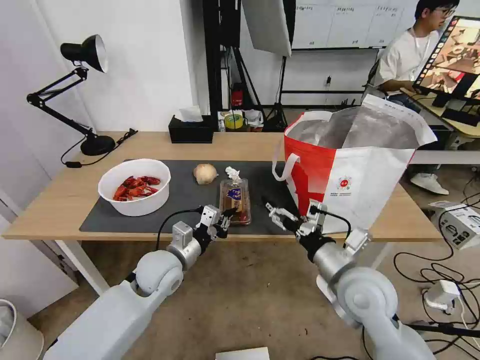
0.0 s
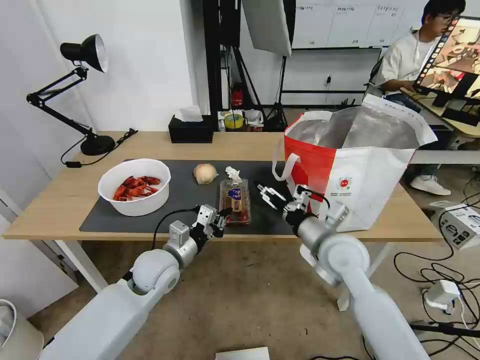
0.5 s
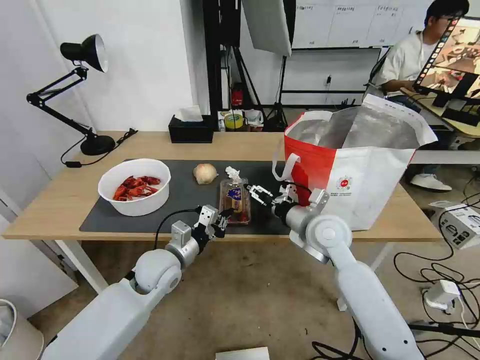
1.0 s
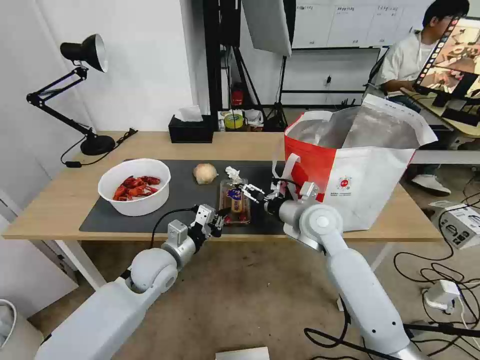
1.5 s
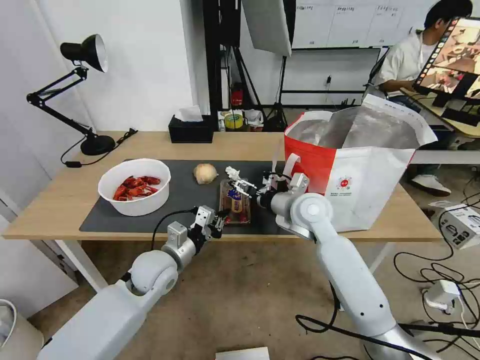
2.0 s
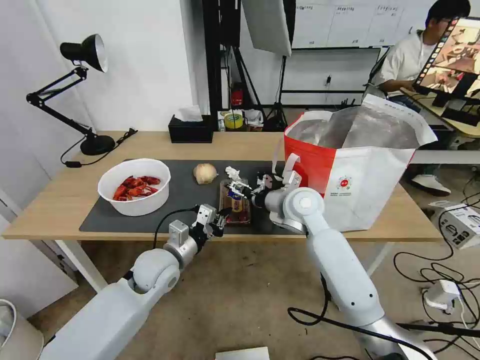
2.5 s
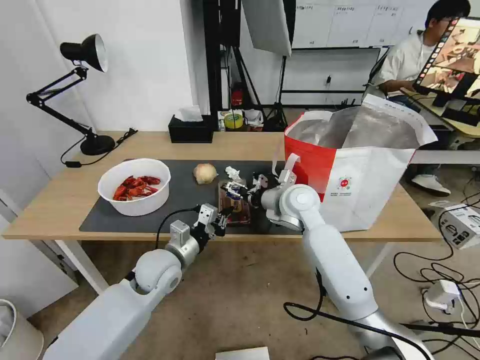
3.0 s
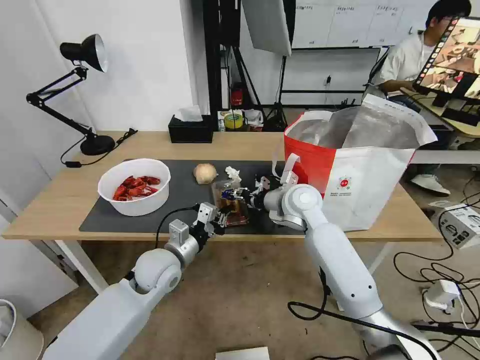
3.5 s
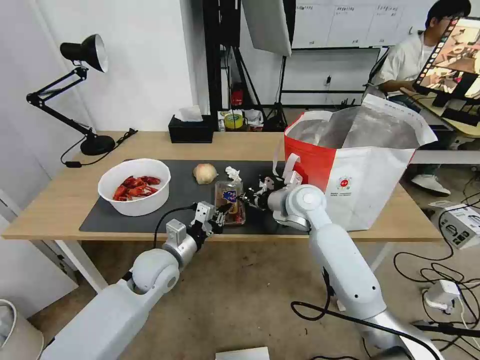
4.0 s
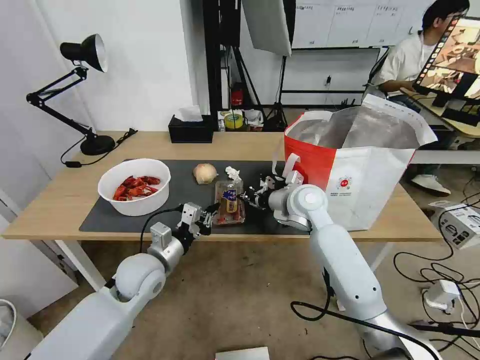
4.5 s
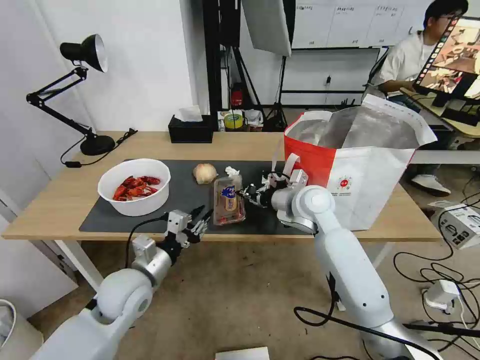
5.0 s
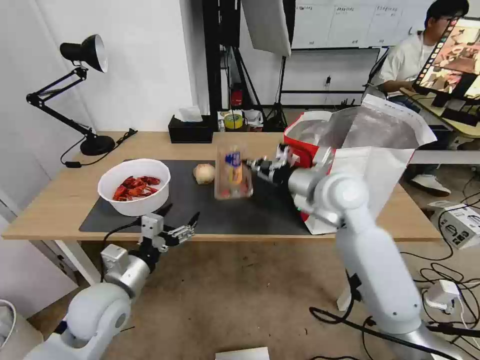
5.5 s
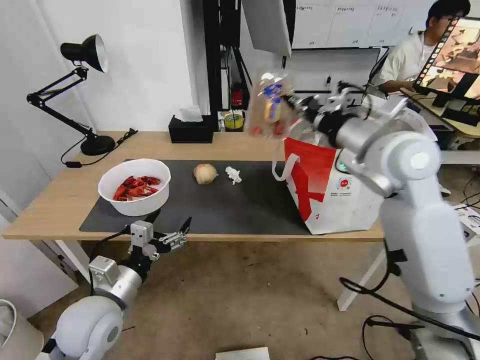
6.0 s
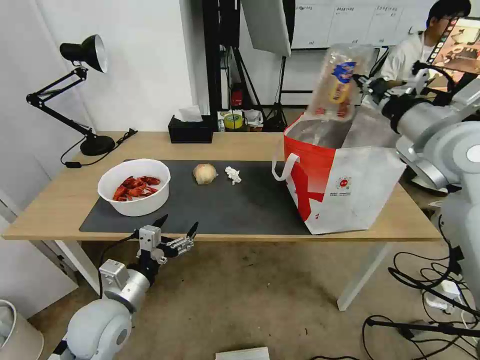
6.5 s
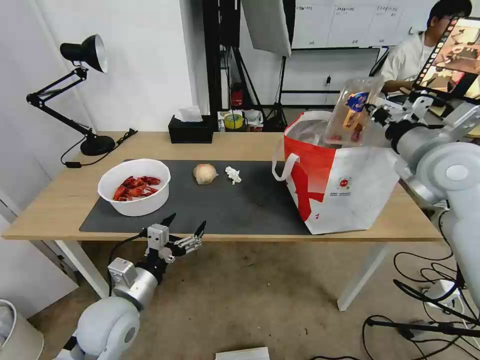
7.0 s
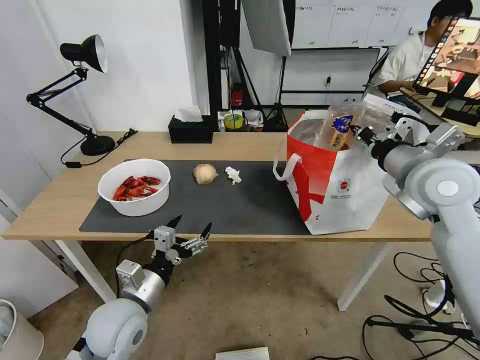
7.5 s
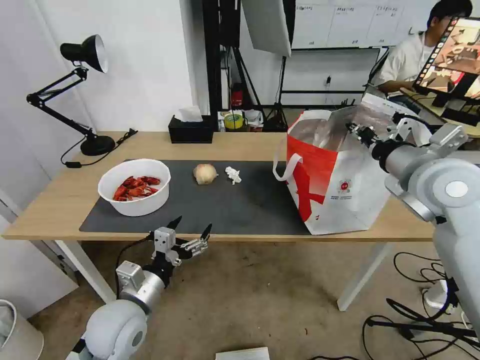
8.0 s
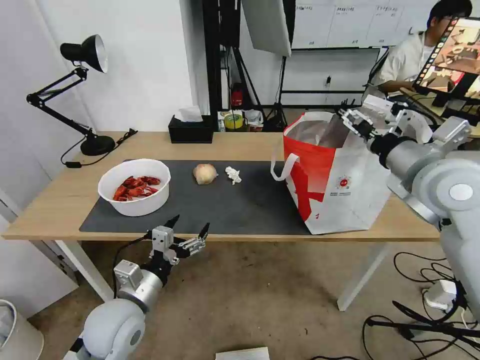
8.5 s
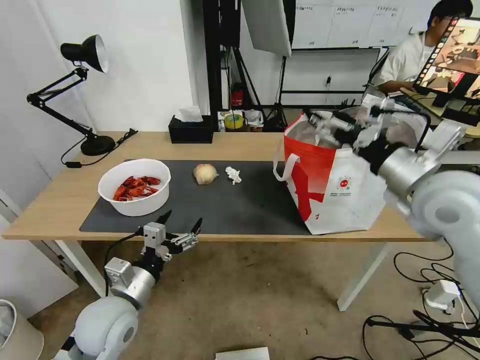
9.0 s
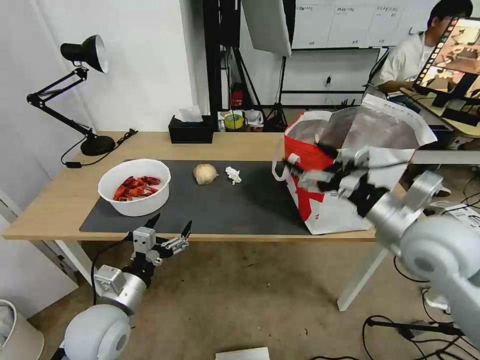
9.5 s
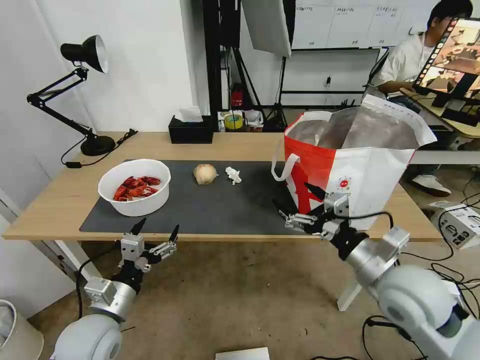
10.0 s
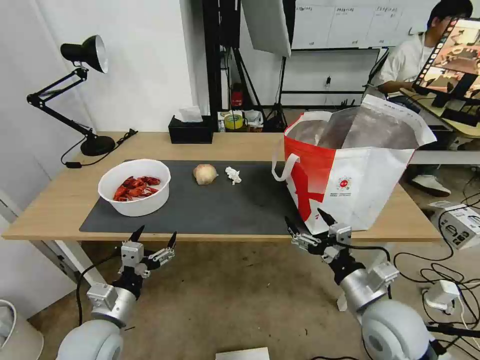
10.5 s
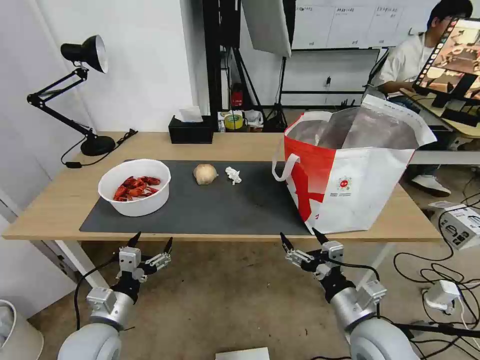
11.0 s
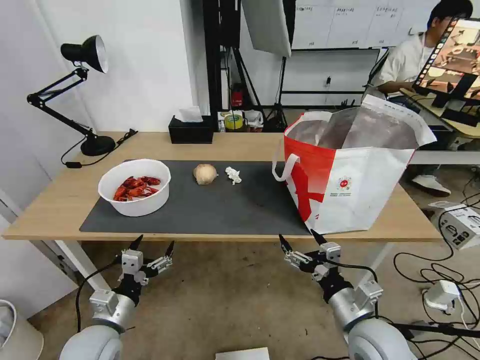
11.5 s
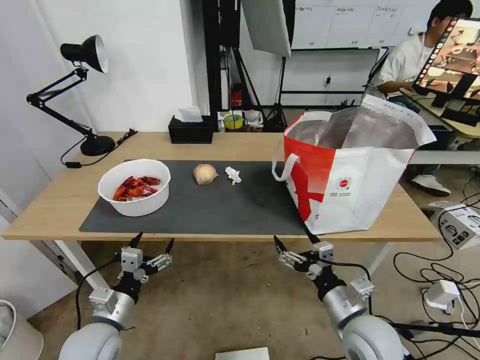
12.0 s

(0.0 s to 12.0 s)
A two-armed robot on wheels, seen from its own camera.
Task of the whole recording: Pick up the trash from the table and place it into the takeout bag.
0.0 s - 2.0 s: The right gripper travels forward by some 20 cm.
2.0 s - 4.0 s: The right gripper closes.
4.0 s - 6.0 s: The left gripper shifts roughly 15 cm backward and to the left, and opens up. The right gripper travels upward and to the right by roughly 20 cm.
6.0 s - 8.0 s: The right gripper goes about 10 cm to the right.
8.0 s - 10.0 s: The left gripper shifts by approximately 5 cm; the right gripper is displaced downward and backward by about 20 cm, and opens up.
10.0 s - 12.0 s: The right gripper travels downward by roughly 10 cm; the left gripper moves roughly 5 cm.

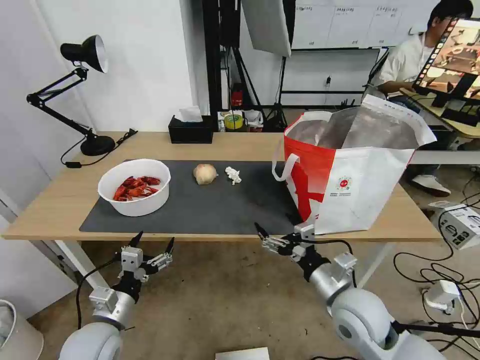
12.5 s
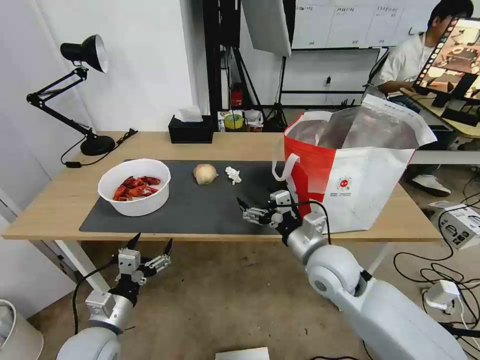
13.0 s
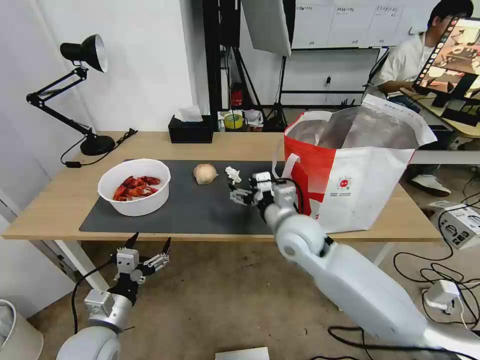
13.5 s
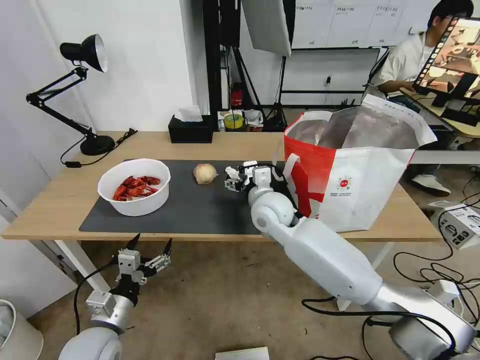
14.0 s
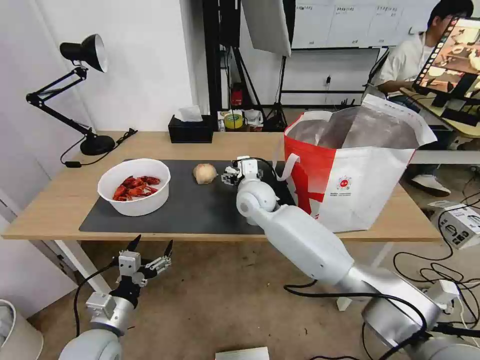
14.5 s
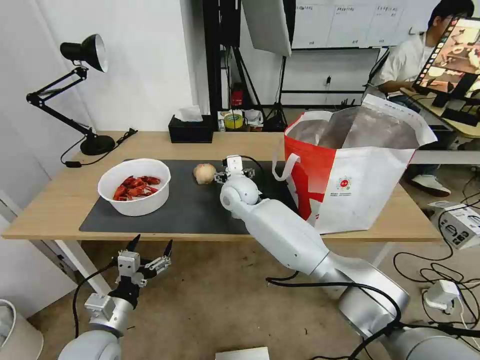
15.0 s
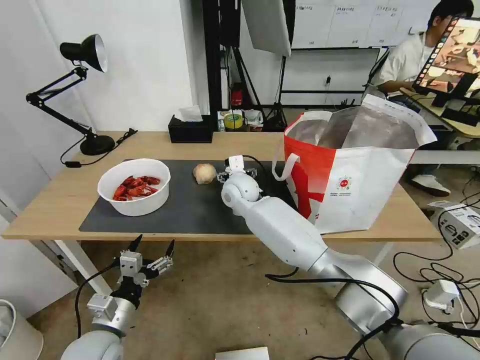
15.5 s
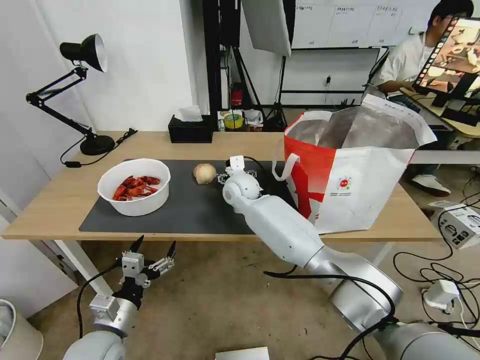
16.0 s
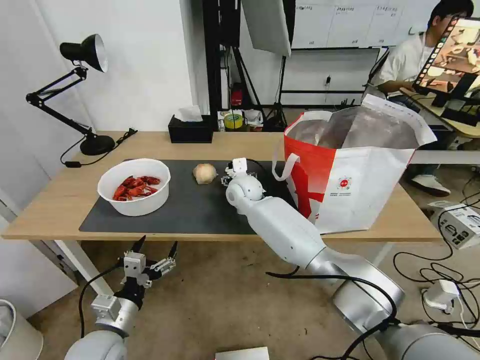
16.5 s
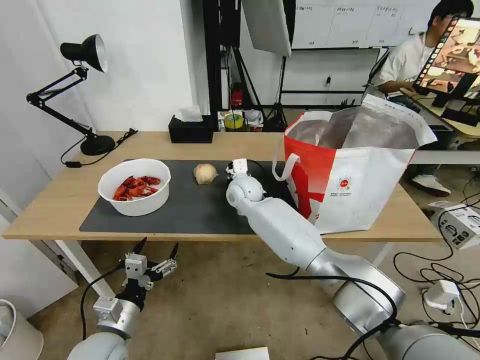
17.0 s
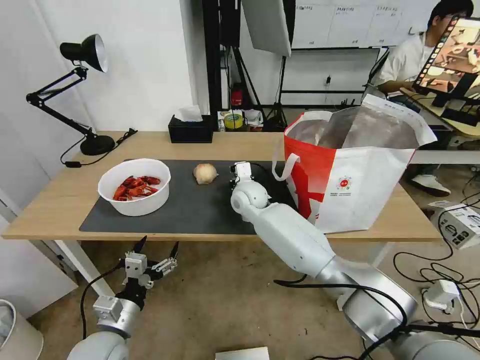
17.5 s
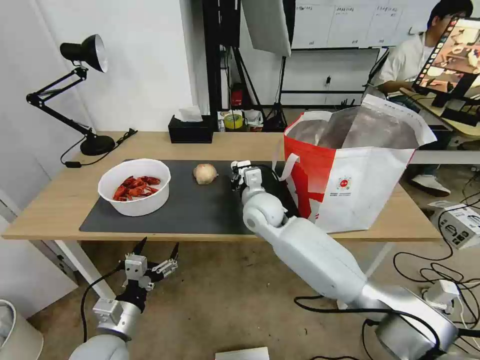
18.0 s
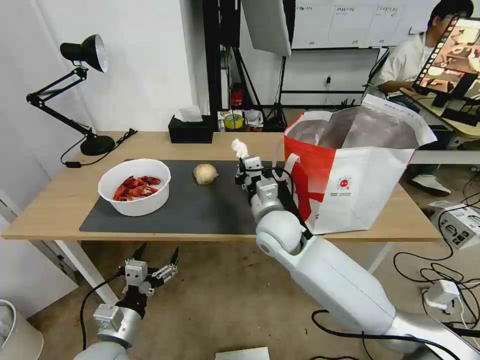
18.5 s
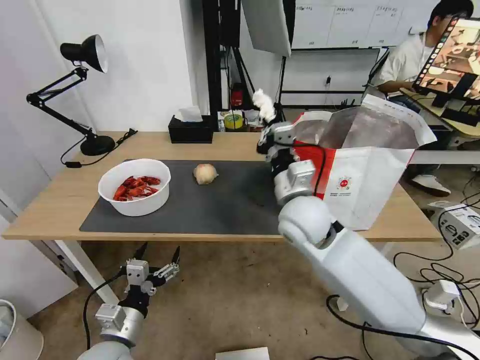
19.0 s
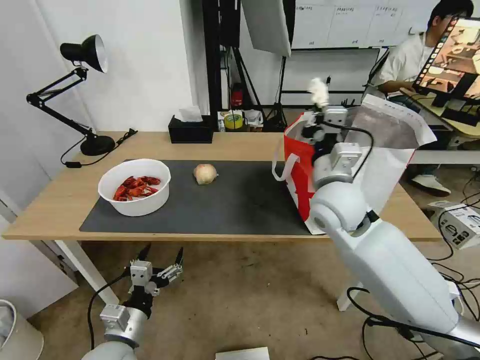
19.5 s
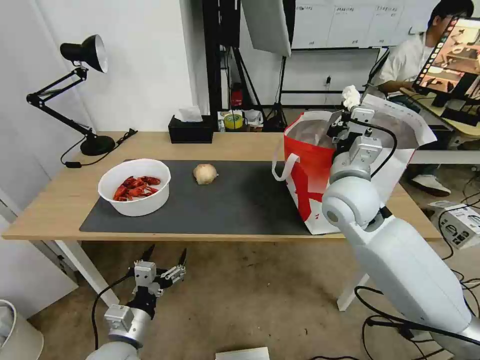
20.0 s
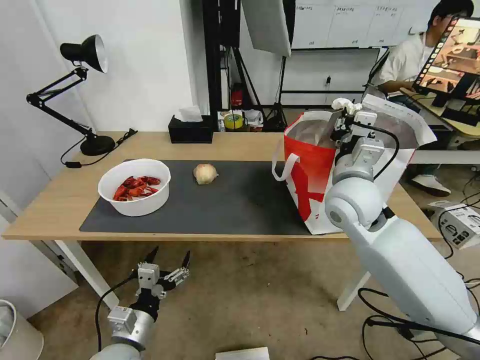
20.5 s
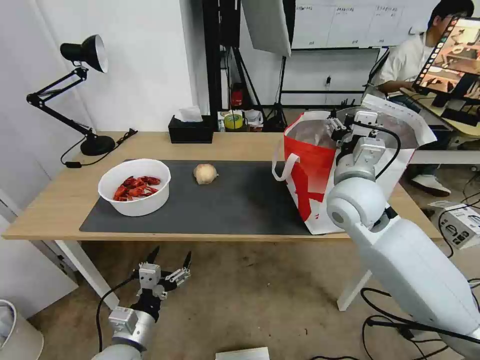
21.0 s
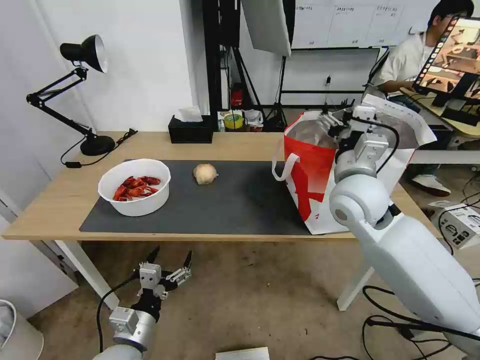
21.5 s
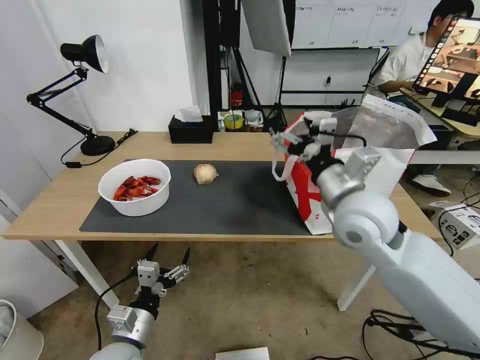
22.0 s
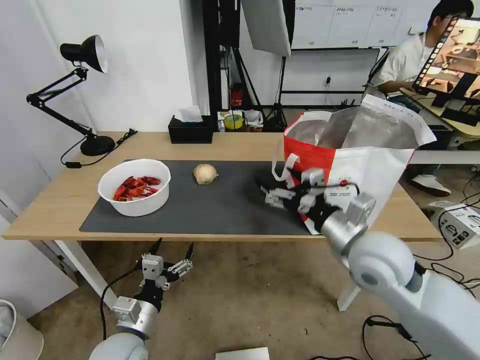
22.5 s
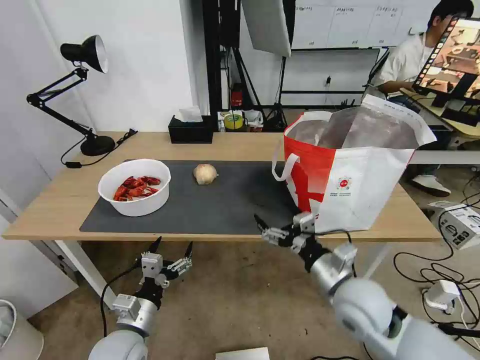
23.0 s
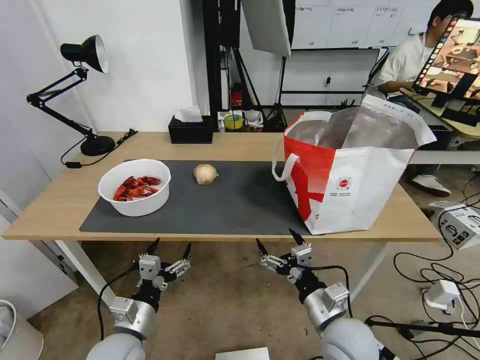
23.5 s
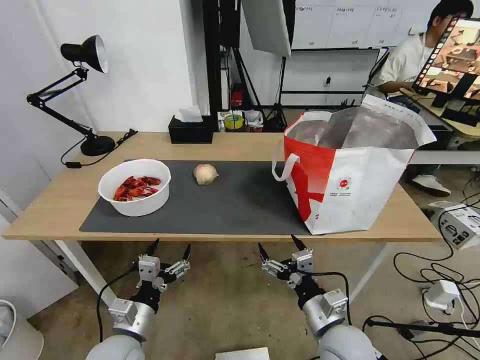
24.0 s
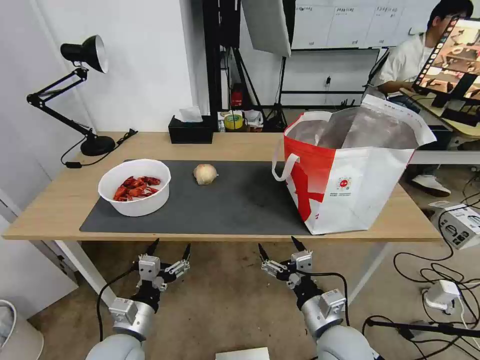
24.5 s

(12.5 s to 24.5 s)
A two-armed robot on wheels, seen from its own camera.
Task of the whole recording: Pick up the trash from the table and place it into the takeout bag.
12.5 s - 14.5 s: The right gripper travels forward and to the left by about 30 cm.
14.5 s - 16.5 s: The right gripper goes approximately 5 cm forward.
16.5 s - 18.5 s: The right gripper moves backward and to the right, about 15 cm, and closes its fingers.
18.5 s - 20.5 s: The right gripper moves to the right and upward, some 15 cm.
20.5 s - 22.5 s: The right gripper moves backward, about 10 cm, and opens its fingers.
22.5 s - 24.5 s: The right gripper travels downward and backward by some 20 cm.

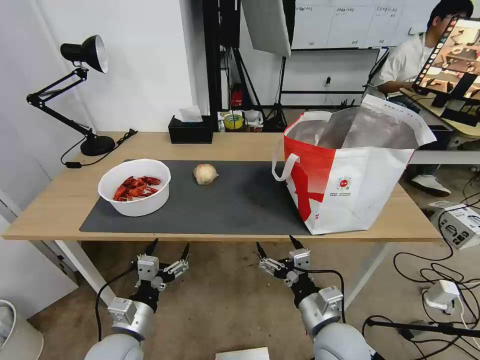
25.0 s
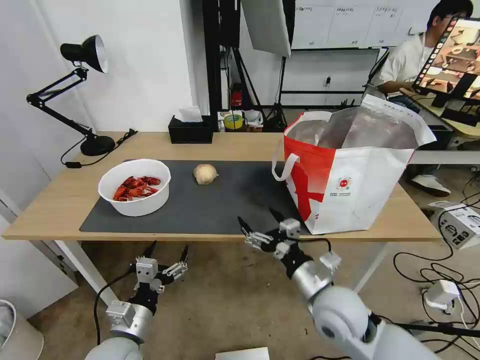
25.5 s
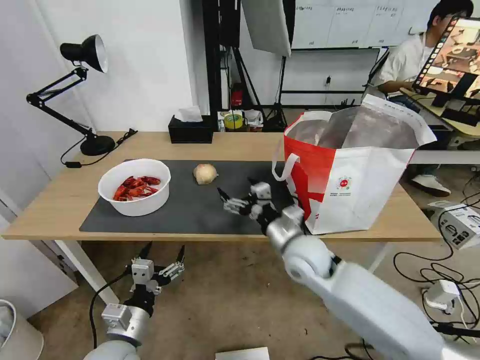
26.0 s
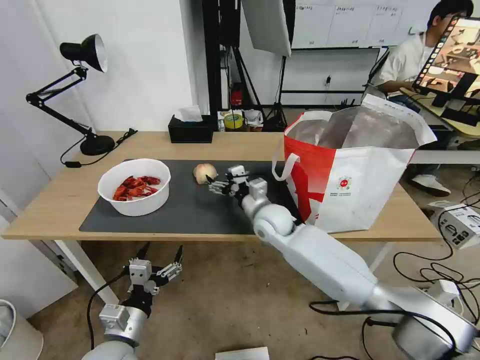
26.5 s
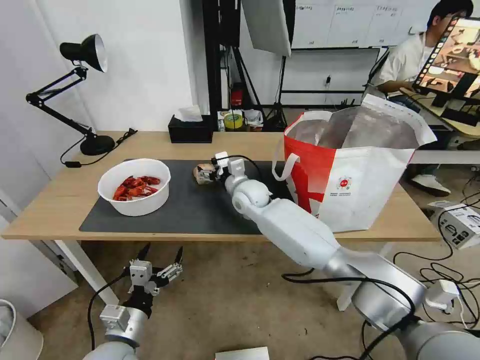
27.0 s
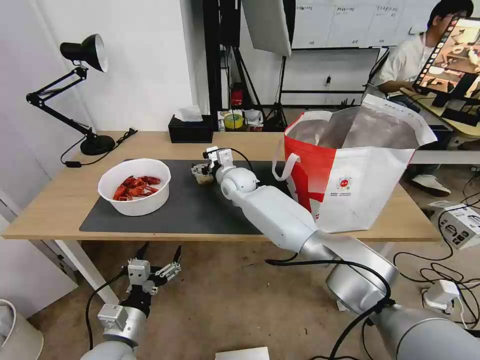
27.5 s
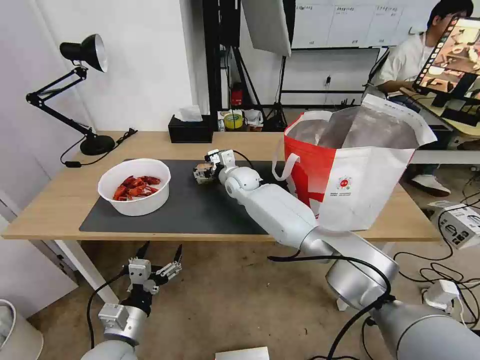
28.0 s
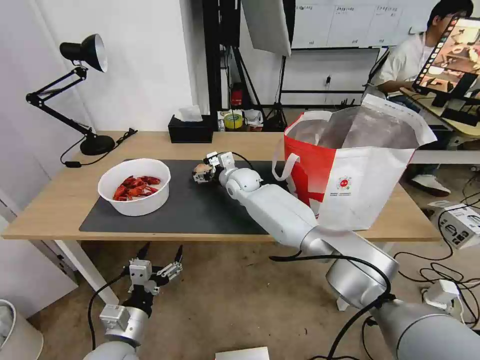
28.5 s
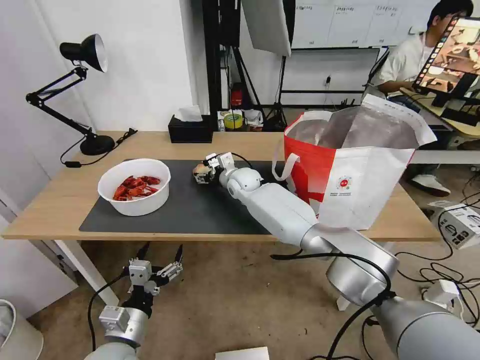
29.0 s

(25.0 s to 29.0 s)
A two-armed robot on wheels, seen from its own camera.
Task of the whole recording: Pick up the trash from the table and place it into the takeout bag.
25.0 s - 27.0 s: The right gripper travels forward and to the left by some 40 cm.
27.0 s - 29.0 s: The right gripper heads forward, covering about 5 cm.
